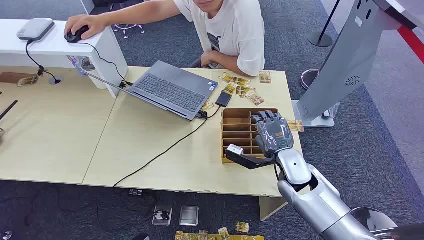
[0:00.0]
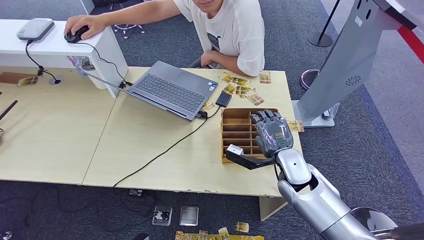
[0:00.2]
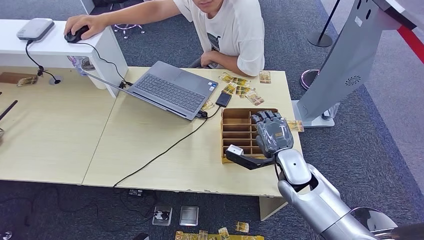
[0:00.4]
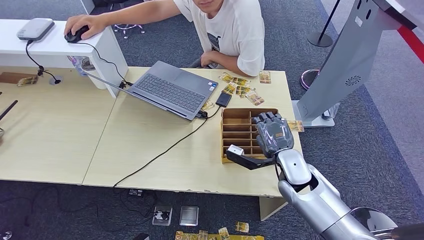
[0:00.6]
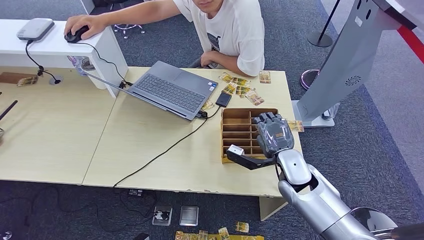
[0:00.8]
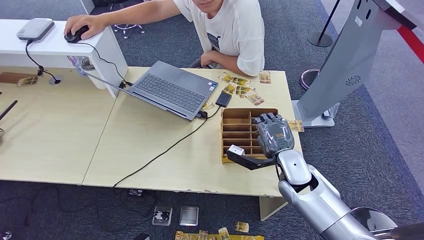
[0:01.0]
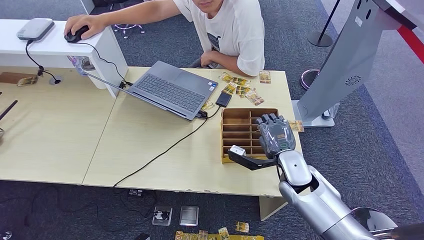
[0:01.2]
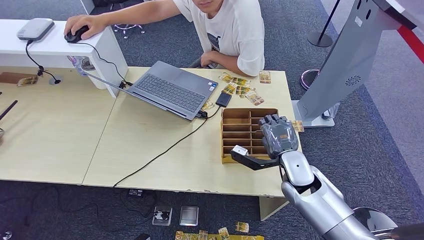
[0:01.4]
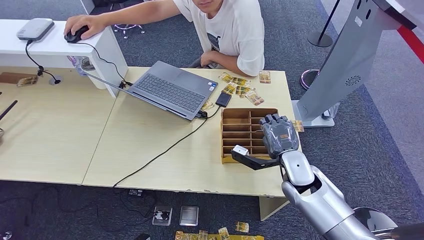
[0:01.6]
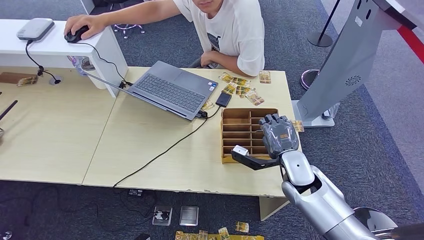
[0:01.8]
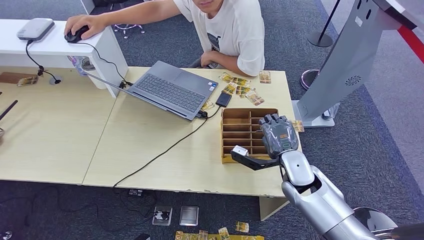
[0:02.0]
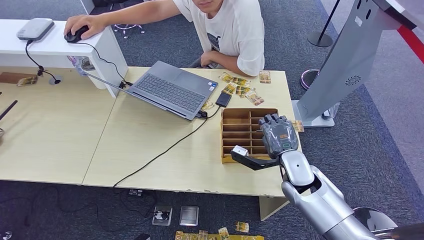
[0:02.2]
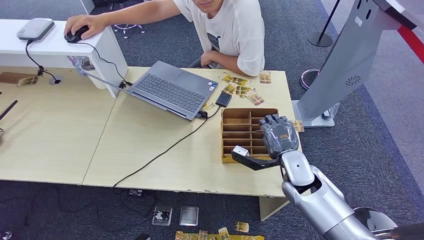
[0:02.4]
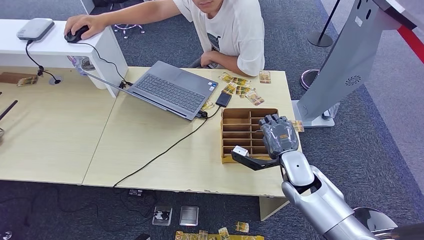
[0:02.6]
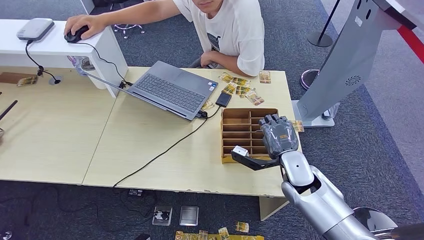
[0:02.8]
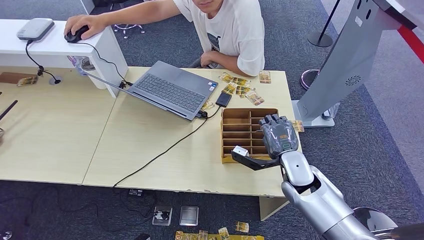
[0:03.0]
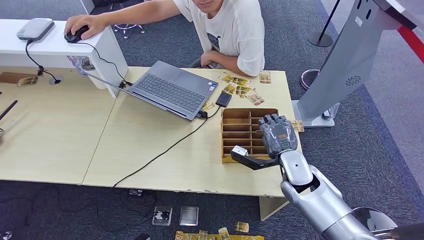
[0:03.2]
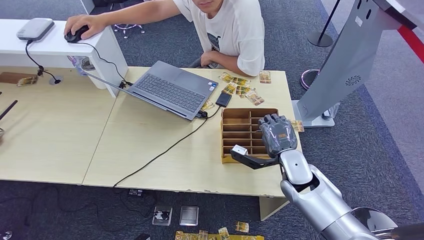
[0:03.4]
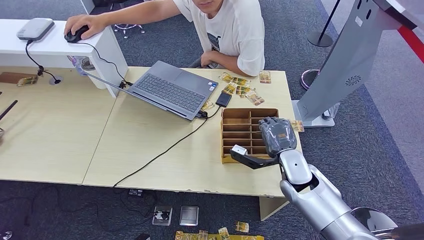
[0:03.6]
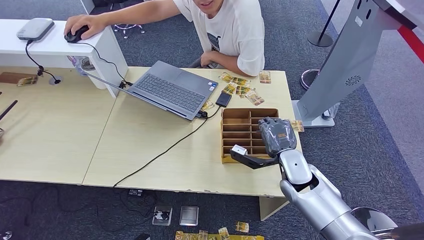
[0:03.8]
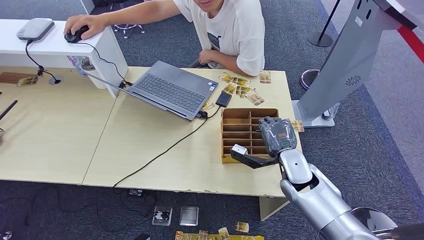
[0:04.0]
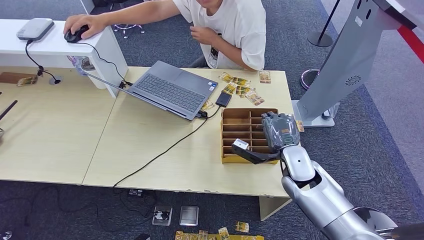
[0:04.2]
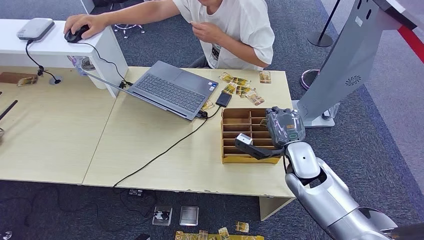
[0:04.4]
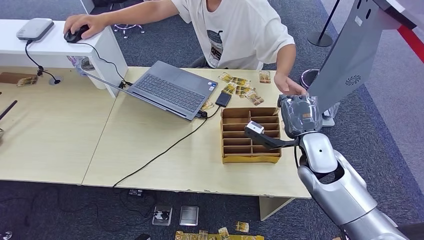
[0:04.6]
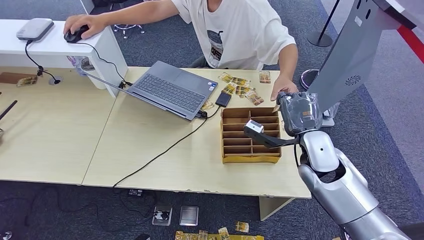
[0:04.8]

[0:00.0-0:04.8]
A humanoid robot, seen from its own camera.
Step, 0:00.0 to 0:04.0: Pick up the room card from the card holder.
Step, 0:04.4 to 0:04.8: Hand the room card to the target.
0:01.6 to 0:03.2: Both hands stay about where they are.
0:03.2 to 0:04.8: The right hand travels upward by some 10 cm.
